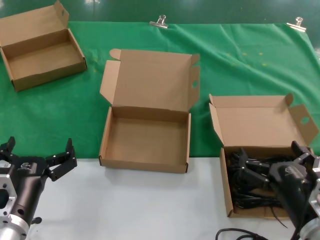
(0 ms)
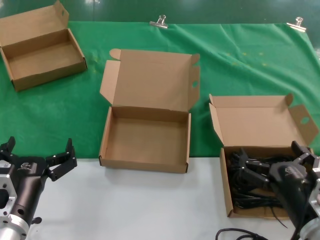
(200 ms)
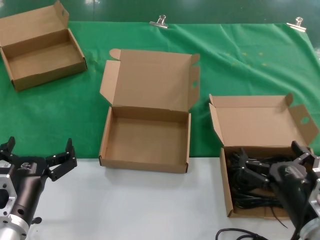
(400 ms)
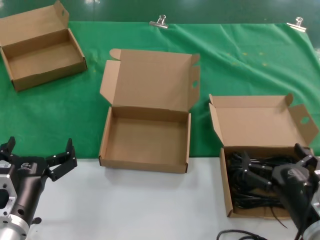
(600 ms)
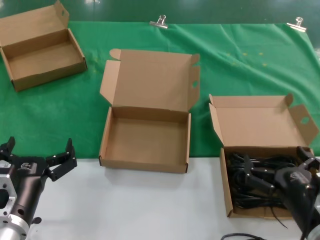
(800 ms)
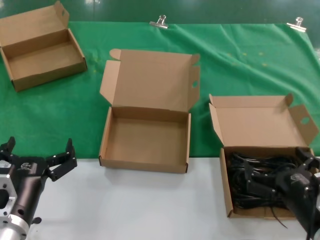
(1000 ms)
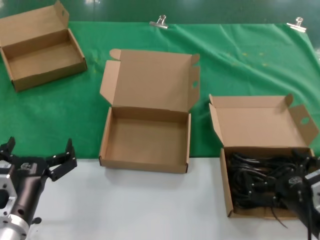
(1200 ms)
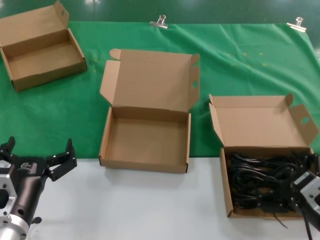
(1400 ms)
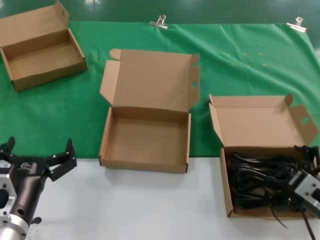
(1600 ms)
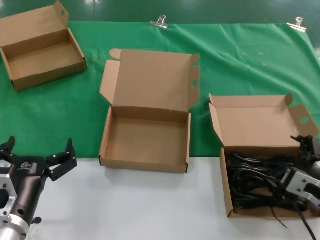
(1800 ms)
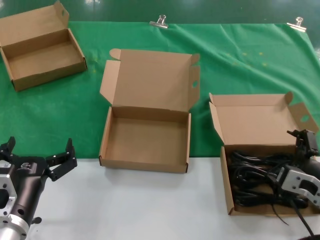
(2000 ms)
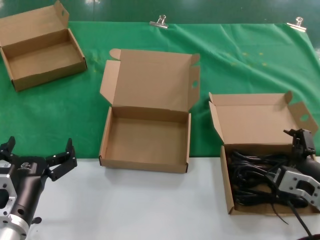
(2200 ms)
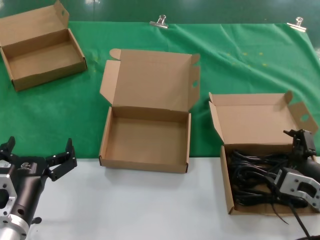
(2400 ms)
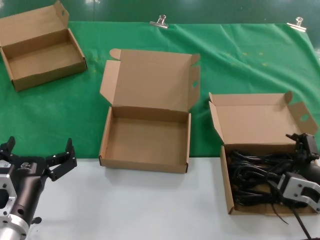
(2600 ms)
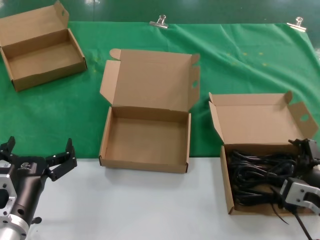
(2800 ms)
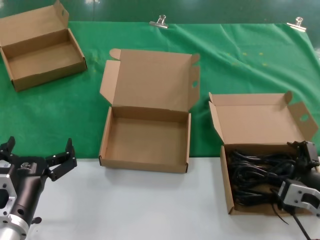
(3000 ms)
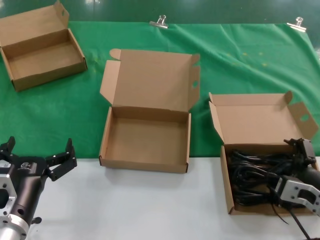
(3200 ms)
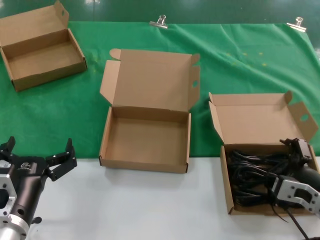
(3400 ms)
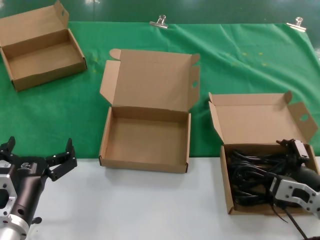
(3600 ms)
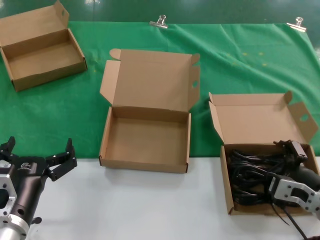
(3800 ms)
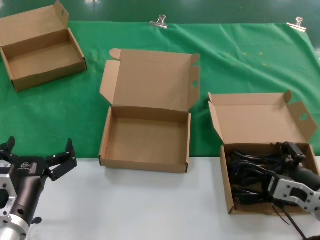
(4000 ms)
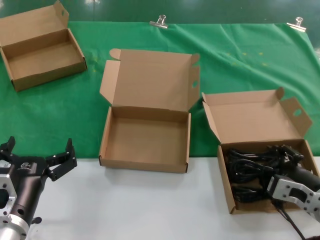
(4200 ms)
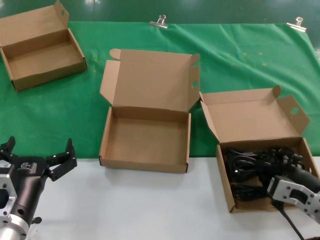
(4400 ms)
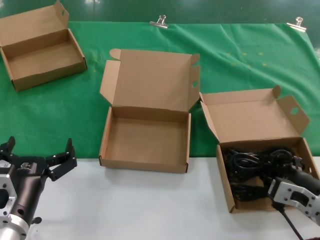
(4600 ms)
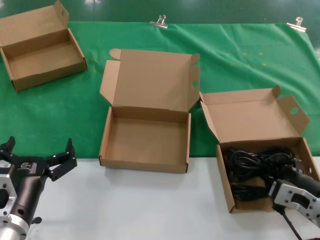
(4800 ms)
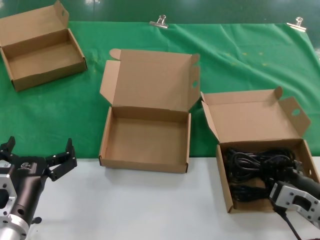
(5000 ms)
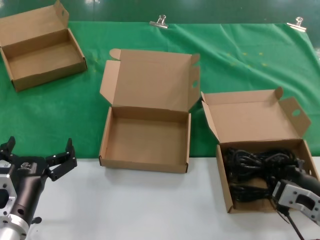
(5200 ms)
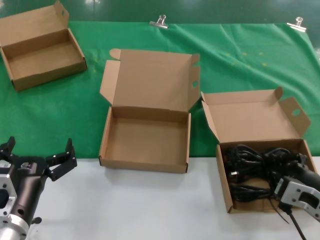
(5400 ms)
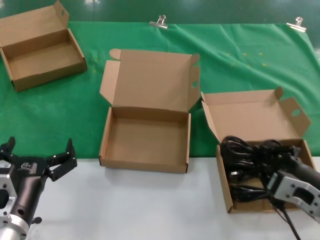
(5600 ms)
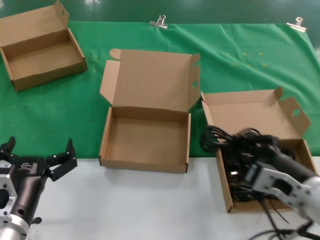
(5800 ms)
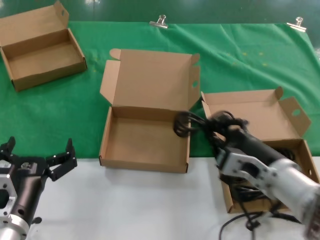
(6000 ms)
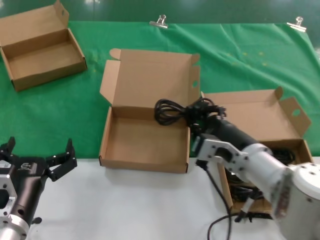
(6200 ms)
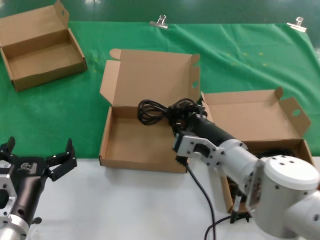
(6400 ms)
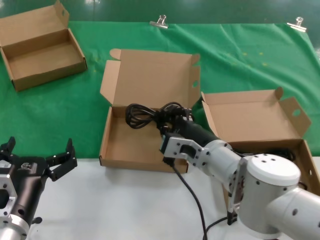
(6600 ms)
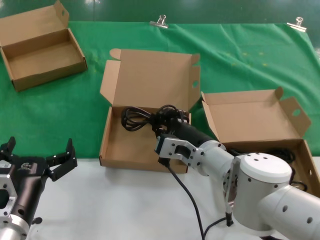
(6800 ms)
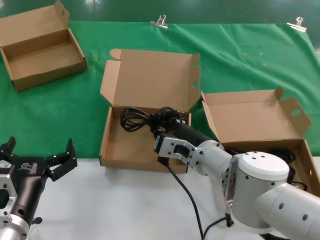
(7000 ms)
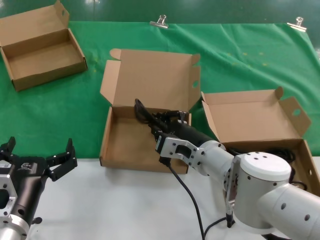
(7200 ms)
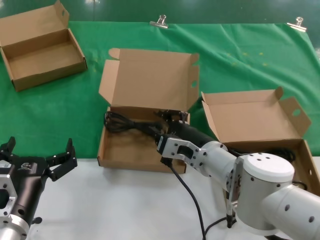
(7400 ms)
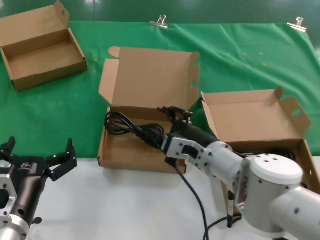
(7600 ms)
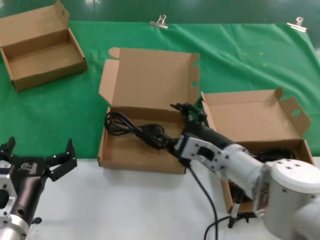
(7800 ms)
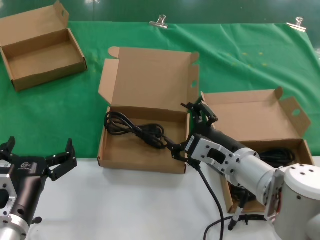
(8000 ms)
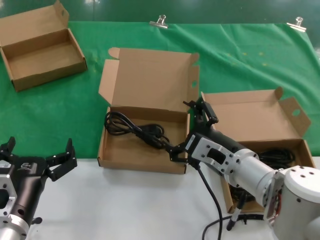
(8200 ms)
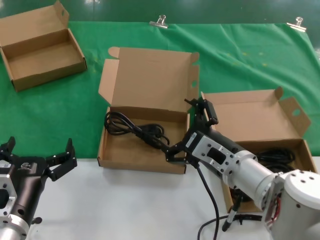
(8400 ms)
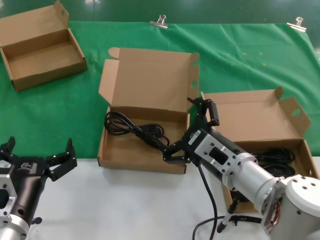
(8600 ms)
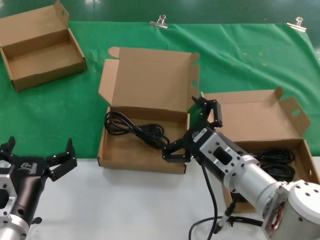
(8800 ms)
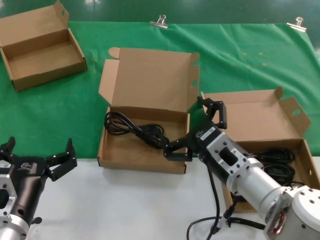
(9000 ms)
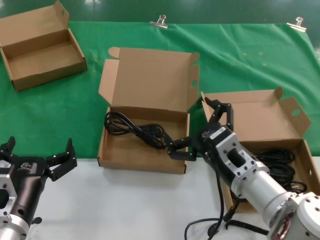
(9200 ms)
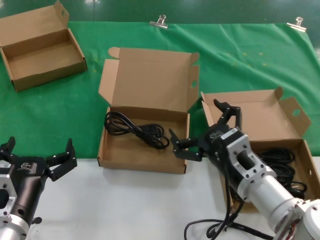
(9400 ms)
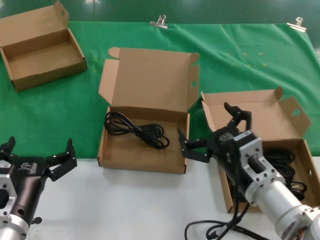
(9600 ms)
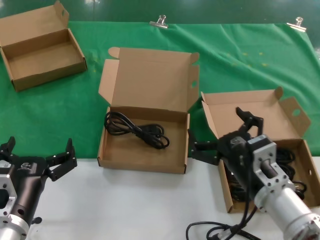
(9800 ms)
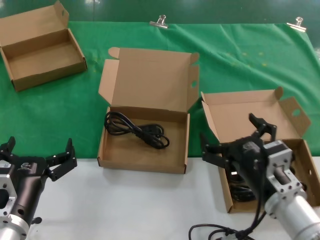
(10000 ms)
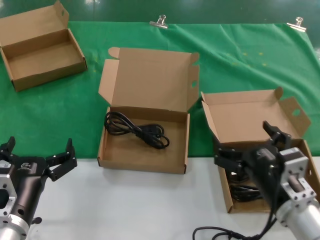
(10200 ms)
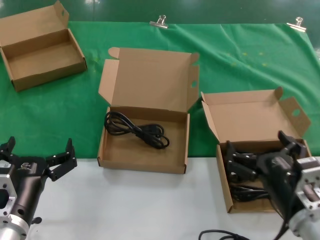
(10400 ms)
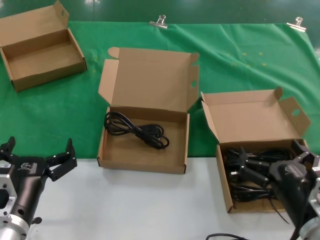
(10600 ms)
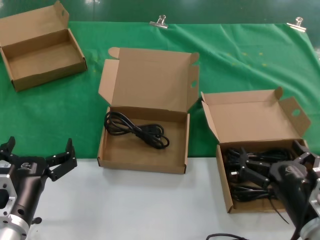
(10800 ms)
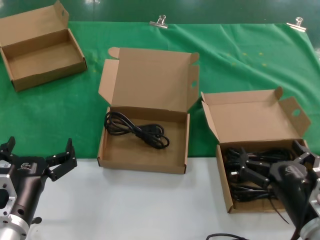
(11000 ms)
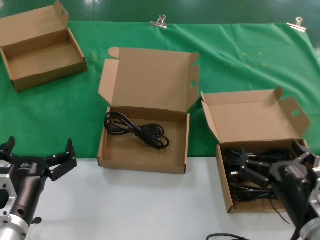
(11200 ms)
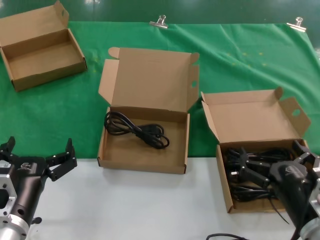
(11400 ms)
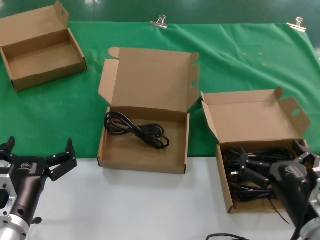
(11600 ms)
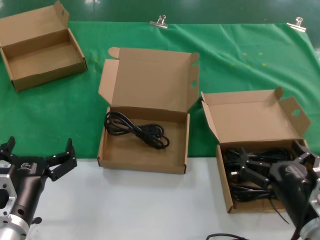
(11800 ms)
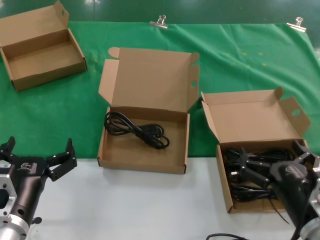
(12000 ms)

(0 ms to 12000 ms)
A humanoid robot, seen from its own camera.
Task of the whole recording: take the parts from the box containing them and put them into an empty box.
Step, 0 ms - 4200 ms: Grasp the data cable.
Step, 4400 ms - 7400 ms: Place the data cable in the another box.
0 ms - 1600 ms: The right hand heads to the right, covering about 5 cm.
3000 ms - 4400 ms: The hands move only a little.
4400 ms - 6000 ms: The right hand goes roughly 10 cm to the left and upward.
6000 ms - 7600 ms: The right hand heads forward and to the left, covering approximately 15 cm.
7600 ms - 9000 ms: The right hand is displaced backward by about 5 cm.
9000 ms - 10400 ms: The right hand moves to the right and backward, approximately 10 cm.
10400 ms - 12000 ms: The hands stay close to where they were, moving slightly.

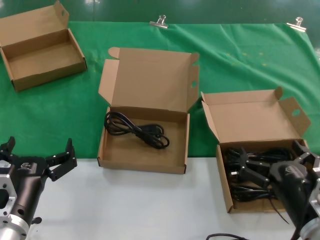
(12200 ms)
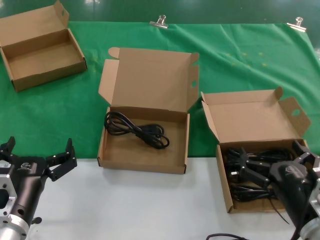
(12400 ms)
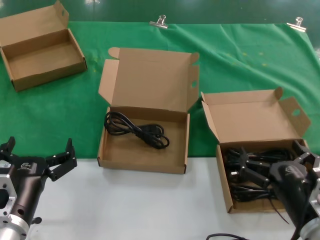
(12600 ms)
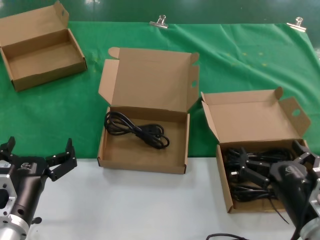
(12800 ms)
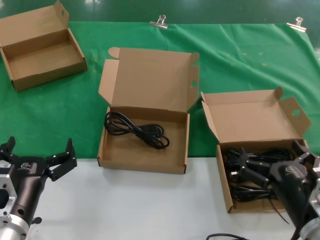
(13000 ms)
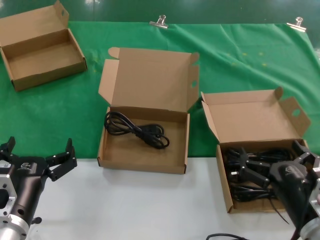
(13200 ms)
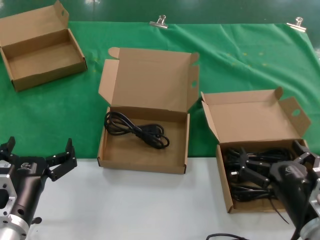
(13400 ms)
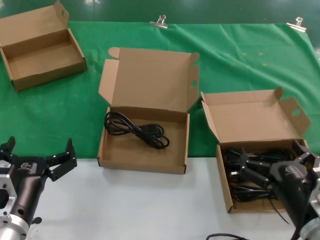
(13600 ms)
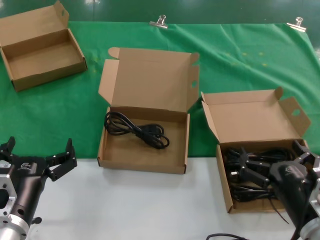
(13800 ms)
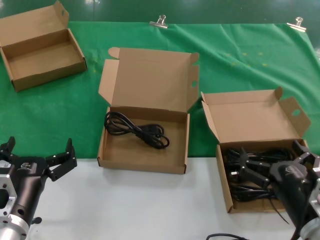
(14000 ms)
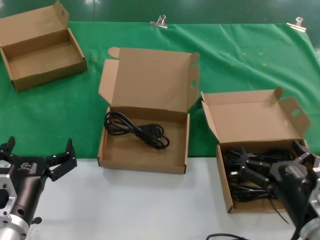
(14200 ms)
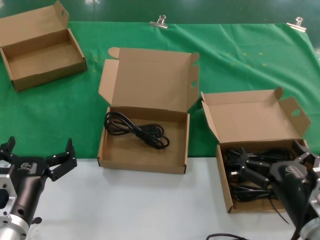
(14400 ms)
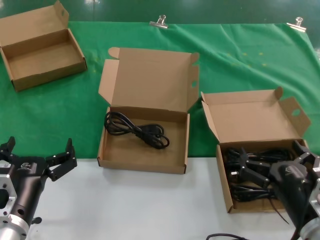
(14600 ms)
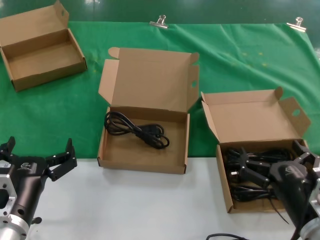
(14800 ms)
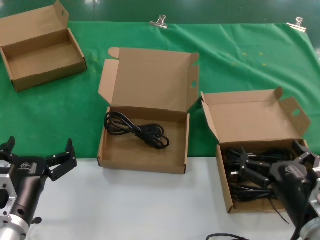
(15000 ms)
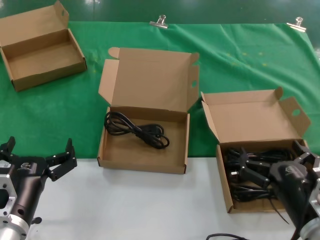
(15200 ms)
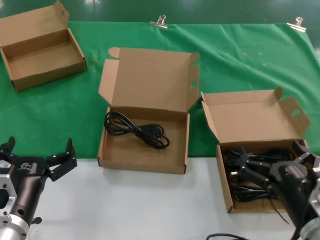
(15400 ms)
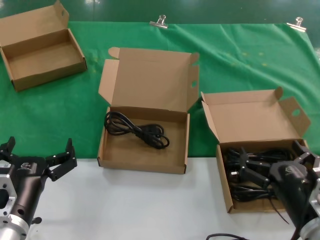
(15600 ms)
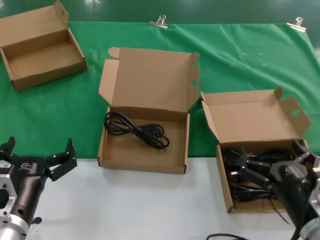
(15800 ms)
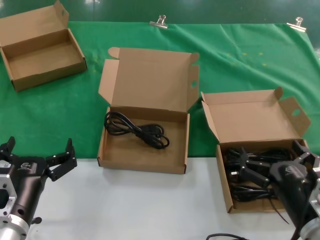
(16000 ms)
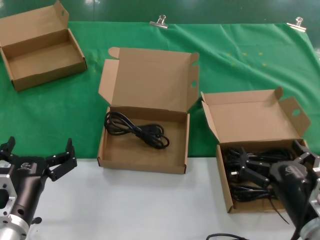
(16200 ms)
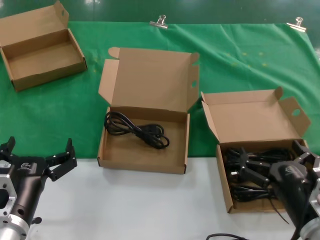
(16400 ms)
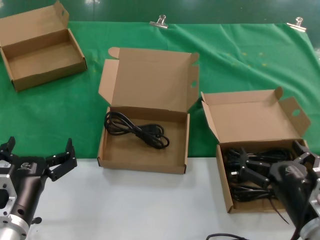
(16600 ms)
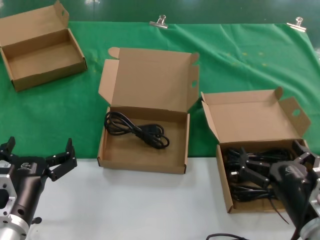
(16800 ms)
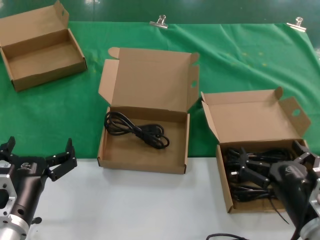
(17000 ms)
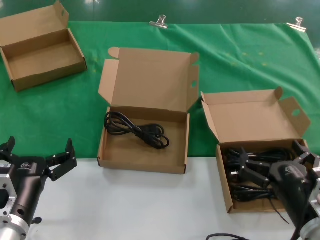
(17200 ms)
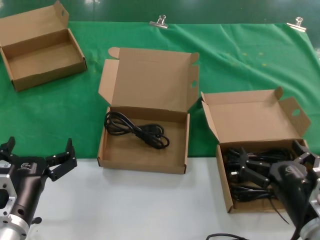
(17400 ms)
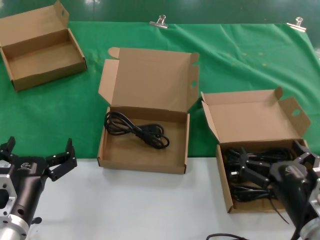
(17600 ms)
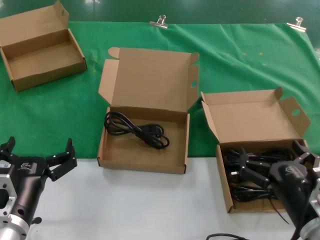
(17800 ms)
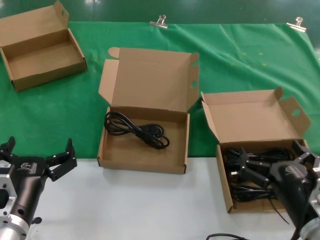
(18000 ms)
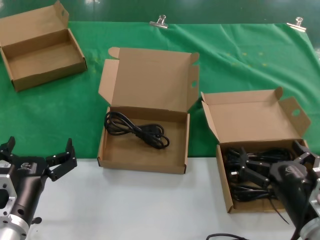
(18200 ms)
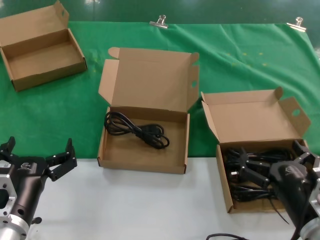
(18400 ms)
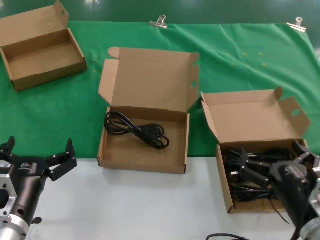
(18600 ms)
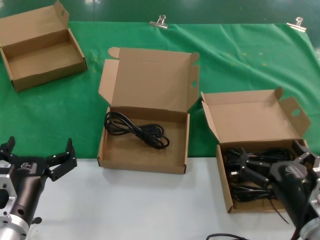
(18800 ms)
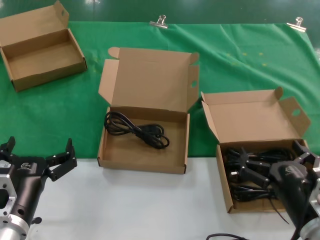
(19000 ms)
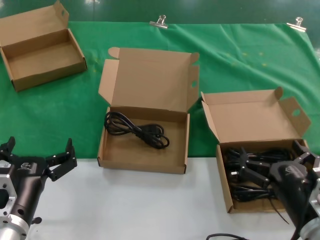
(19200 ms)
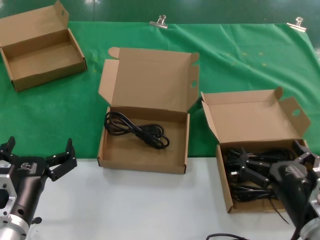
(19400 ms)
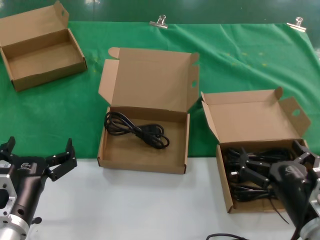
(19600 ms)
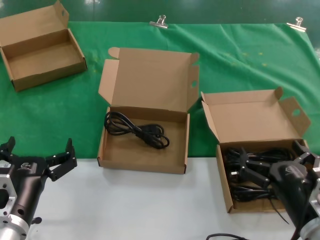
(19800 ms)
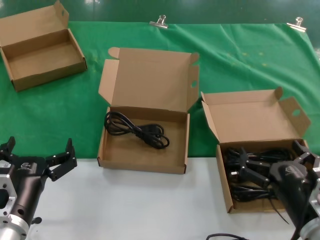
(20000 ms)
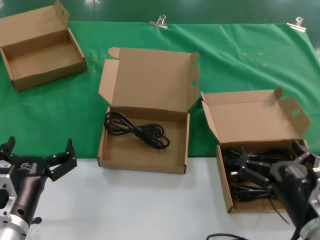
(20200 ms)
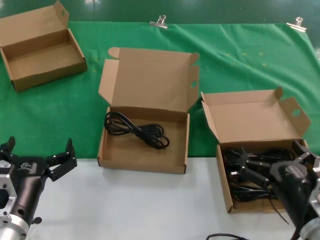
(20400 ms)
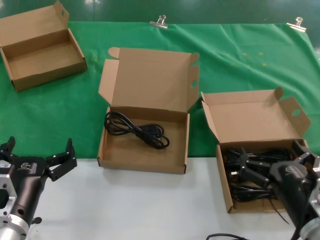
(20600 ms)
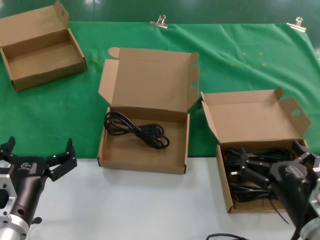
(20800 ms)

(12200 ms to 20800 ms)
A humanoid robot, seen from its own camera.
Task of the whole recording: take the parts from the box containing them and put them into an empty box.
12200 ms - 20800 ms: Both hands stay put.

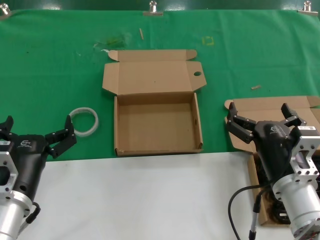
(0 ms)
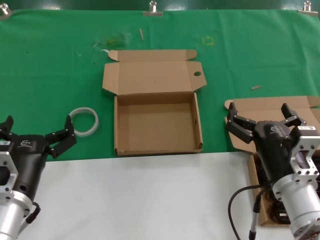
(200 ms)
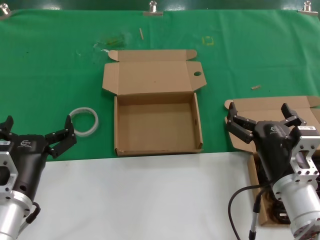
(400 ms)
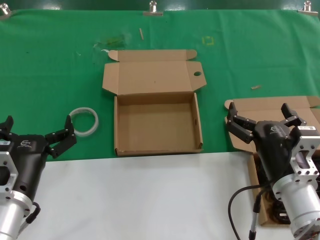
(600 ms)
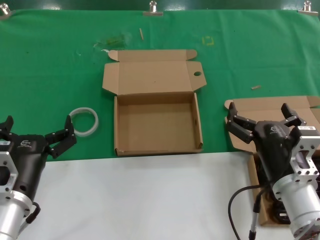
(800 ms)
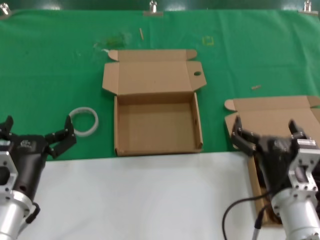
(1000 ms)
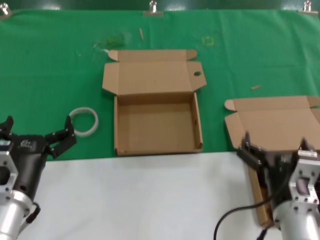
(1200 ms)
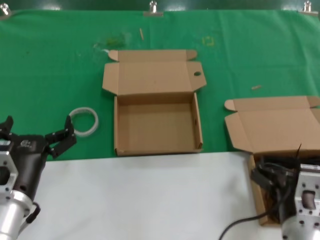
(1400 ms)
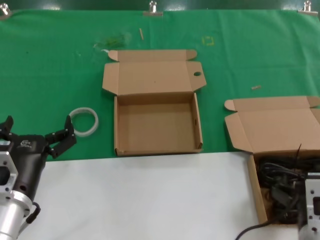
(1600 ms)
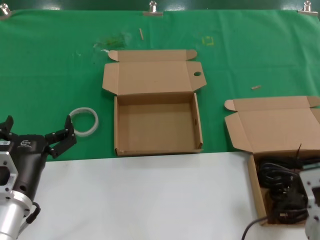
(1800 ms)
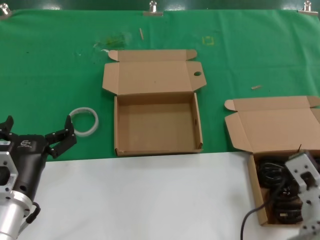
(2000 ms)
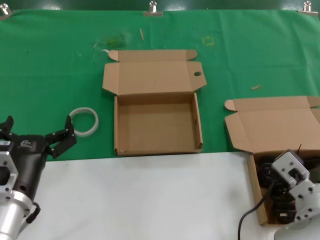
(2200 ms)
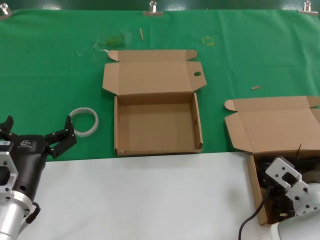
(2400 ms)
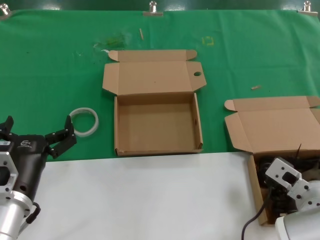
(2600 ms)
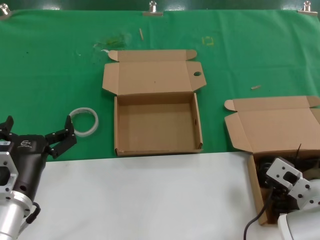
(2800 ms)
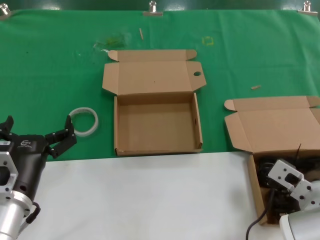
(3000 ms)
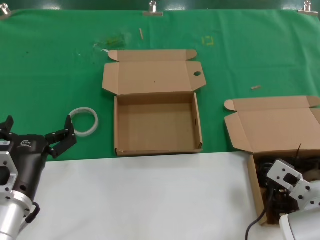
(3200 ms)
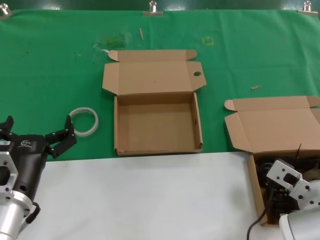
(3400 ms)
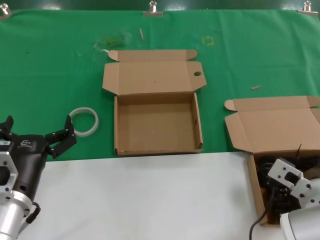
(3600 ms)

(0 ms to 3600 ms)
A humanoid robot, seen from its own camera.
Task of the whole recording: take the parts from the box containing them and put them into an empty box.
0 ms - 1800 ms: The right hand travels backward by some 5 cm.
1800 ms - 3600 ms: The right hand goes about 10 cm forward.
